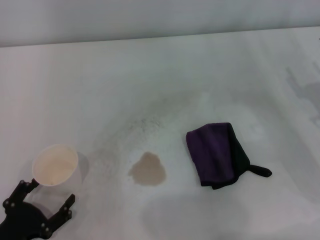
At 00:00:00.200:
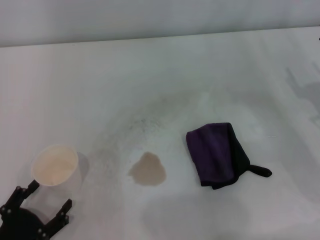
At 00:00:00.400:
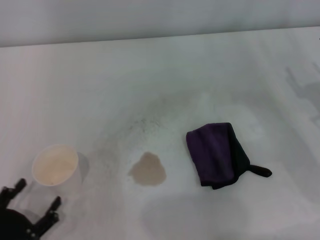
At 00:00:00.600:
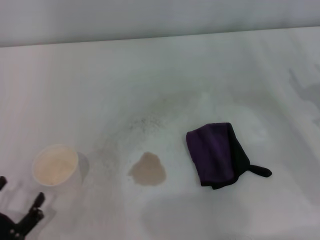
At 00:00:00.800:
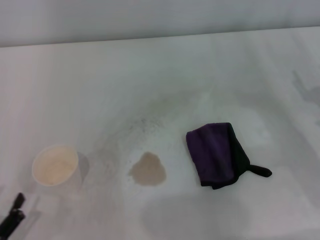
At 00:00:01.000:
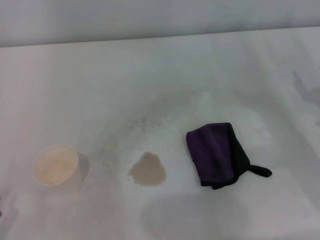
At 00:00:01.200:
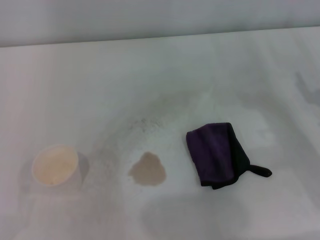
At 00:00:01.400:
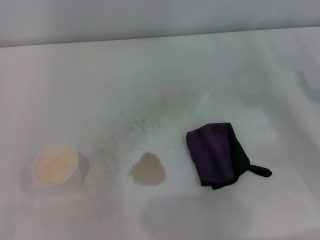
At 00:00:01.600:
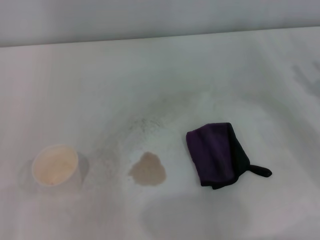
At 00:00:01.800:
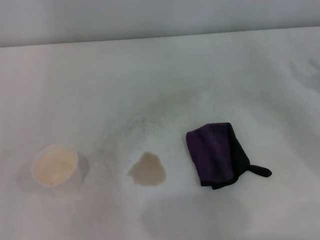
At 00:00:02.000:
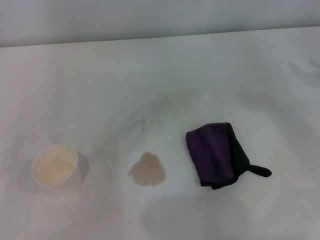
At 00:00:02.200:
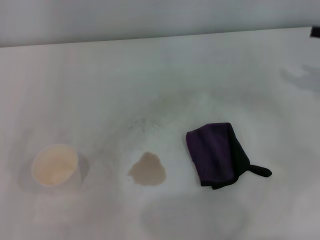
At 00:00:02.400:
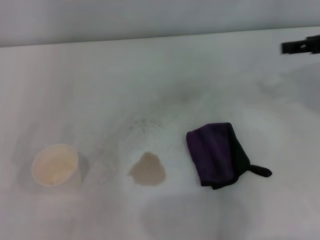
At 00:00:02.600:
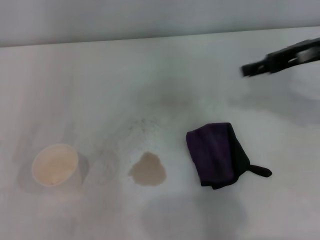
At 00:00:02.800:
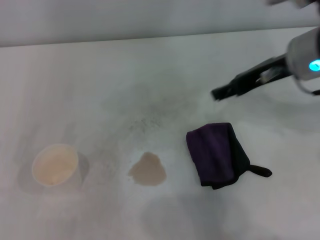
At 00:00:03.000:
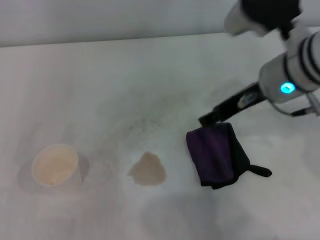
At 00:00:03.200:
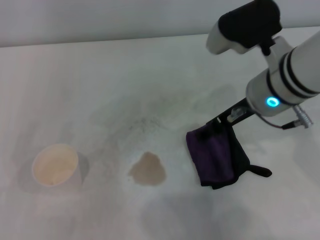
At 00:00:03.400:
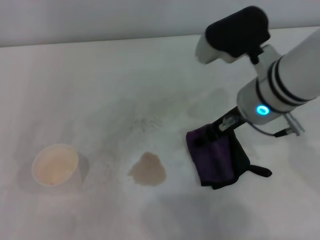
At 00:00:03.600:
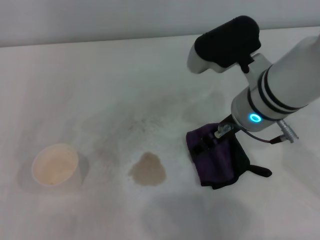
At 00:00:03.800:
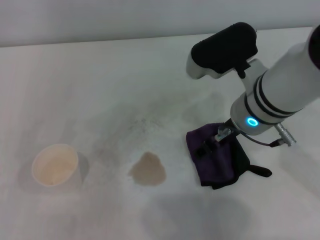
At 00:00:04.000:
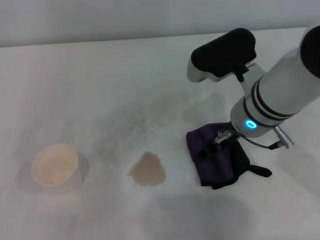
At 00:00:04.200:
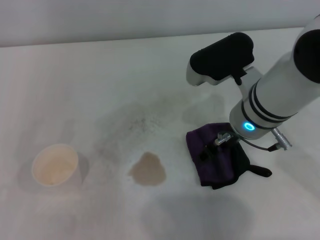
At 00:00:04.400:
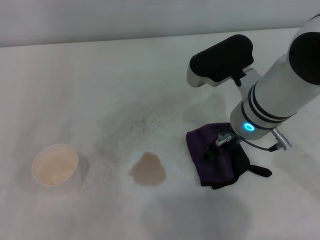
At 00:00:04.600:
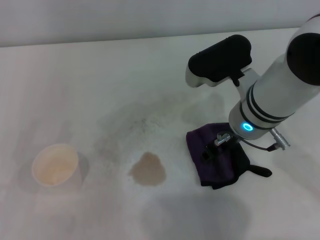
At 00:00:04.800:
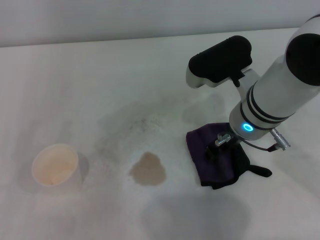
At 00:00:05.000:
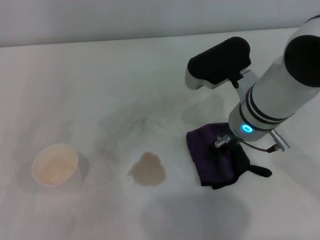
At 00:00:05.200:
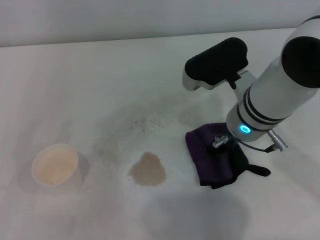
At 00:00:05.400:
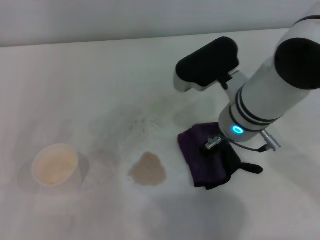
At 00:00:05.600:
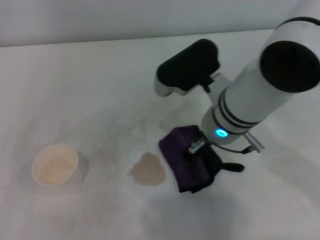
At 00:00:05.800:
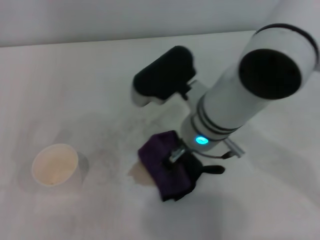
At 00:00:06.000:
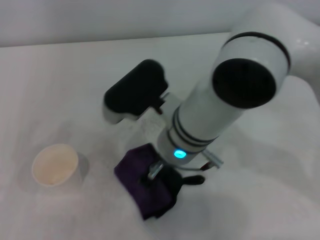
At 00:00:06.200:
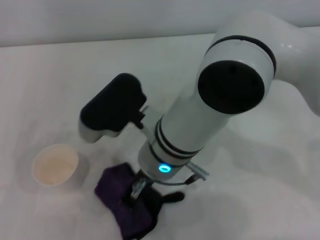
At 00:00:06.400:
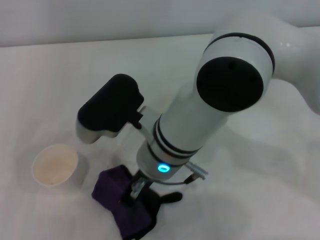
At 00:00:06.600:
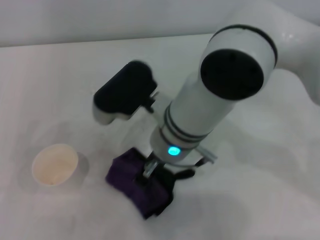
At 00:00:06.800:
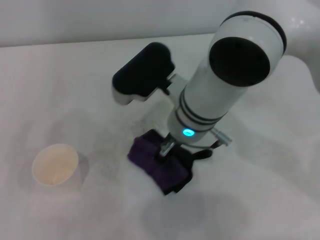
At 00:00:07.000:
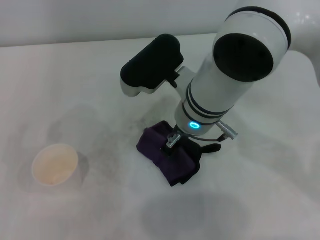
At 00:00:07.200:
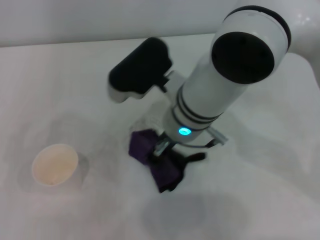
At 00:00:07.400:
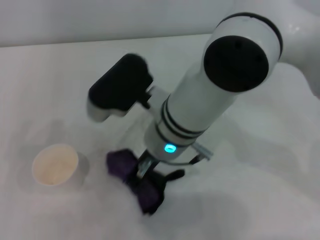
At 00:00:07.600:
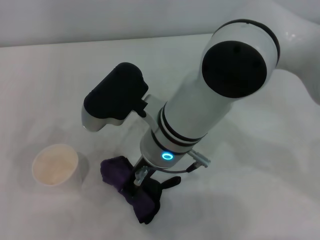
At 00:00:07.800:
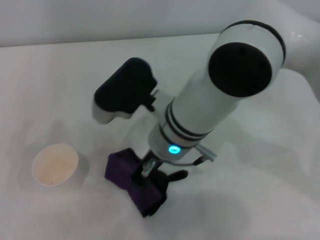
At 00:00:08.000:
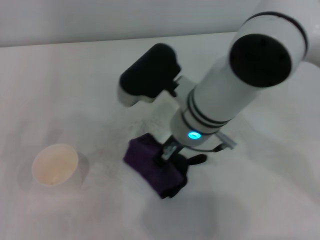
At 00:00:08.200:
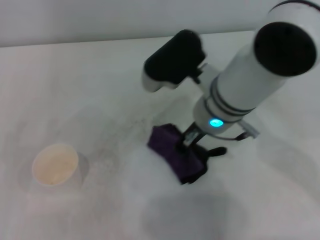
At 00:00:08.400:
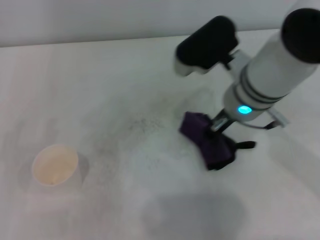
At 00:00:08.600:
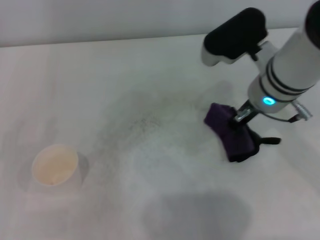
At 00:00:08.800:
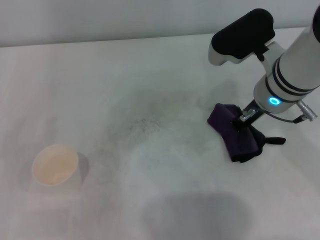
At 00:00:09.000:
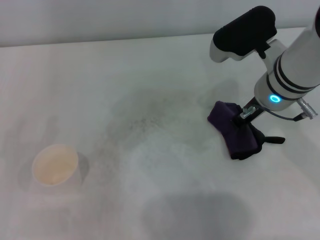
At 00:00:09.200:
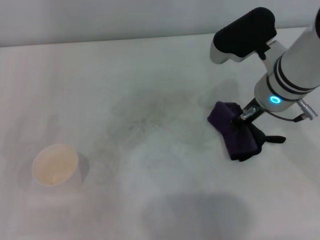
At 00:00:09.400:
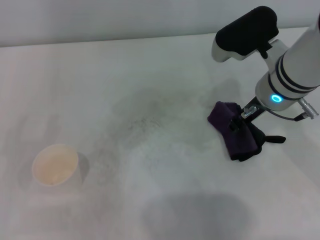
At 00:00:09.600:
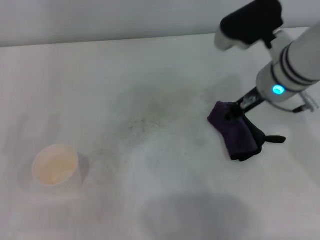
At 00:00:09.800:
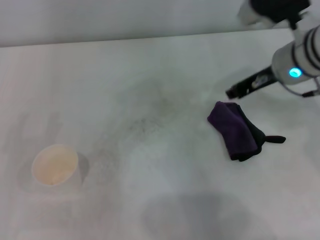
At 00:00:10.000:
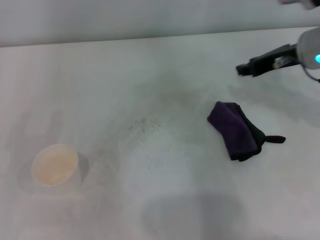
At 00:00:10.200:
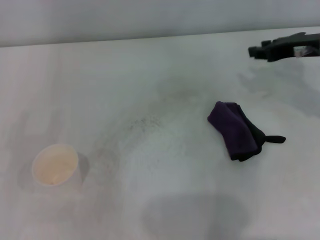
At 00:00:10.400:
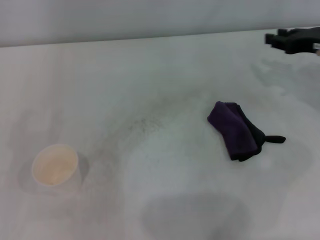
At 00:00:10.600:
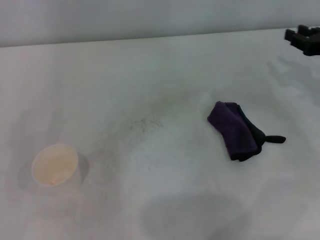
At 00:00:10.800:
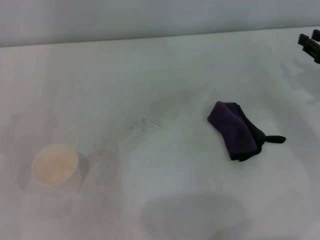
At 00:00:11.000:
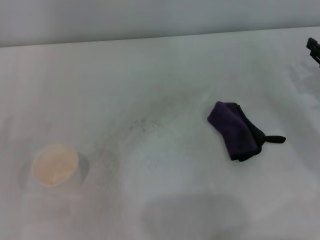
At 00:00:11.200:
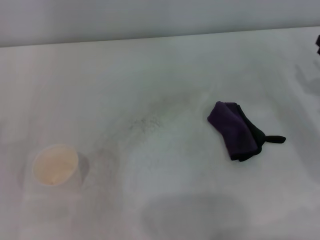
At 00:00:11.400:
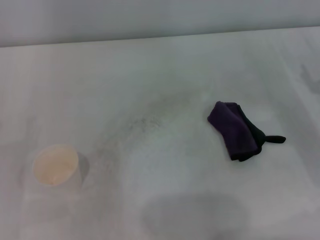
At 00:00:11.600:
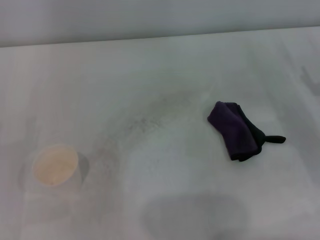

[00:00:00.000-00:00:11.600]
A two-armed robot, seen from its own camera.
Step, 00:00:00.000 to 00:00:05.000: Grasp the rag with the right gripper.
Step, 00:00:05.200 to 00:00:08.600: Wipe the stains off the table with the right gripper.
Step, 00:00:08.800 to 00:00:09.400: Place the rag on the table with the right gripper.
00:00:00.000 to 00:00:01.400: The left gripper heads to the left, covering roughly 5 cm.
00:00:01.400 to 00:00:02.800: The right gripper is displaced to the left, upward and forward by approximately 20 cm.
00:00:02.800 to 00:00:04.400: The right gripper heads to the left and downward, covering some 10 cm.
00:00:04.400 to 00:00:05.800: The right gripper is displaced to the left by about 5 cm, and closes its fingers.
00:00:07.200 to 00:00:08.800: The right gripper goes approximately 15 cm to the right.
00:00:08.800 to 00:00:10.200: The right gripper is displaced to the right by about 15 cm, and opens its fingers.
00:00:10.200 to 00:00:11.600: The right gripper shifts approximately 15 cm downward, to the right and backward, and opens up.
